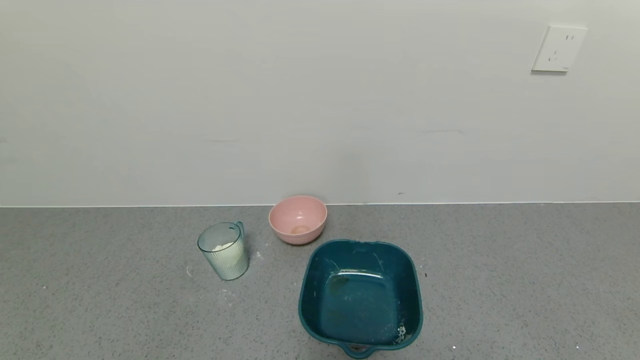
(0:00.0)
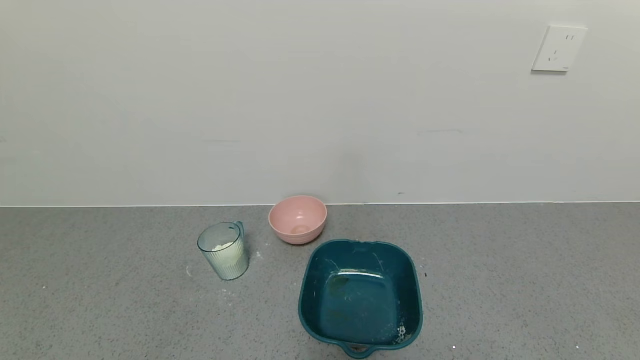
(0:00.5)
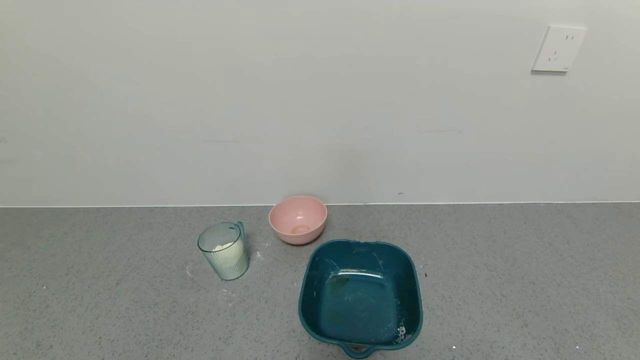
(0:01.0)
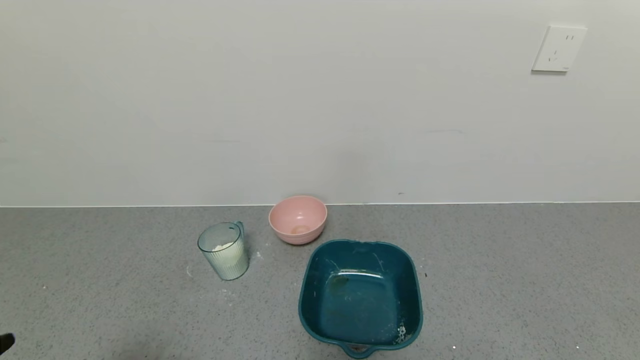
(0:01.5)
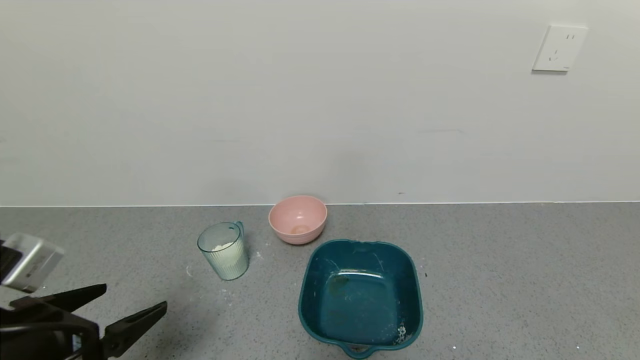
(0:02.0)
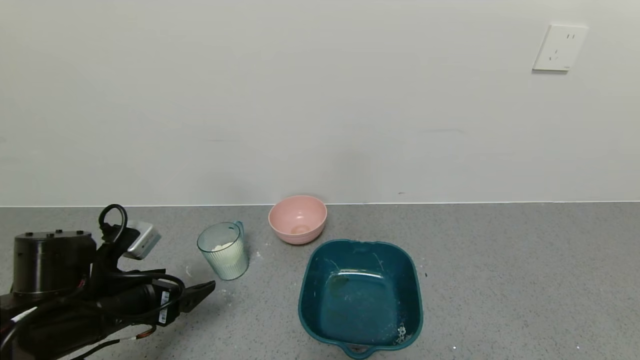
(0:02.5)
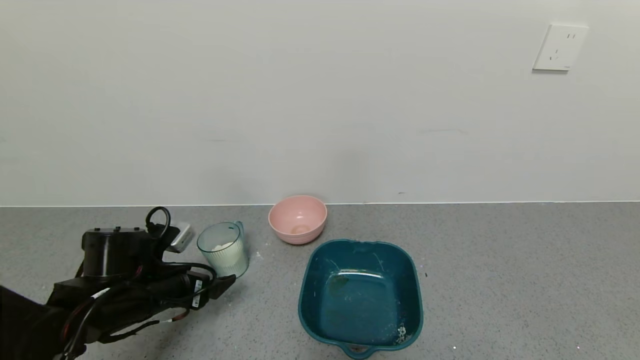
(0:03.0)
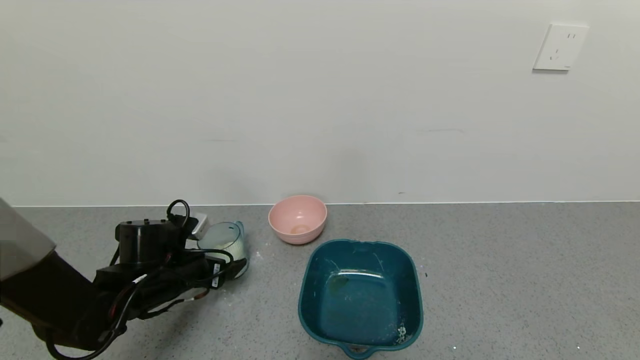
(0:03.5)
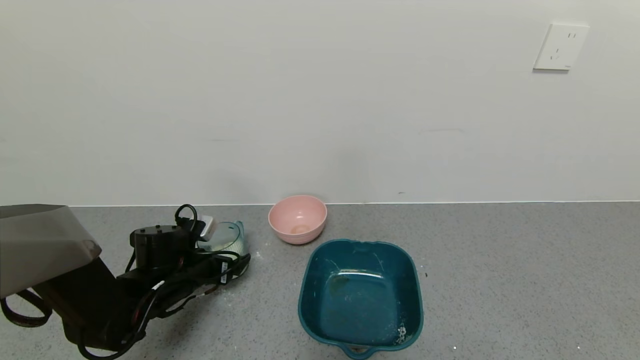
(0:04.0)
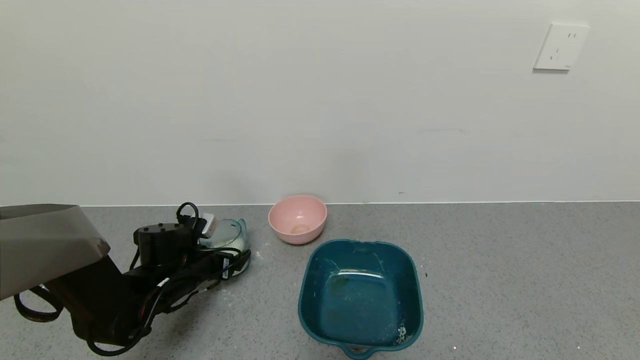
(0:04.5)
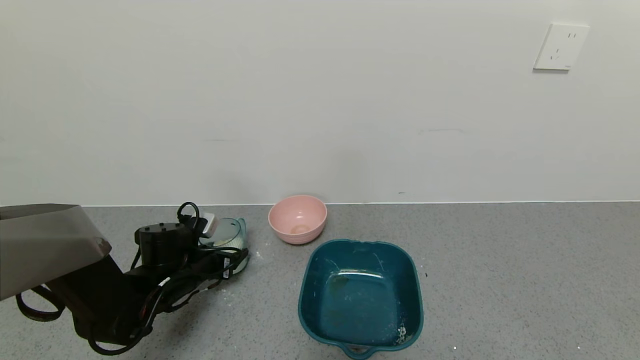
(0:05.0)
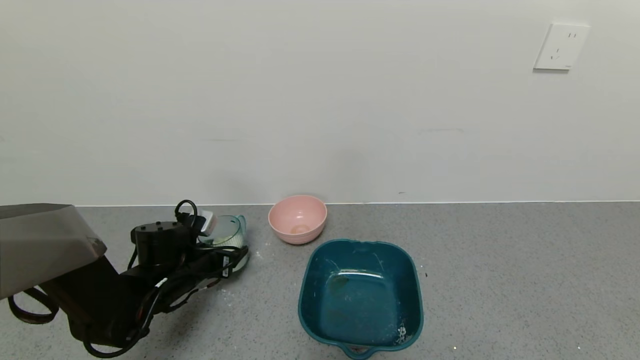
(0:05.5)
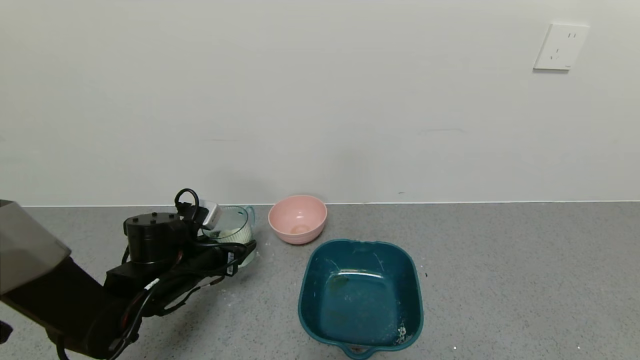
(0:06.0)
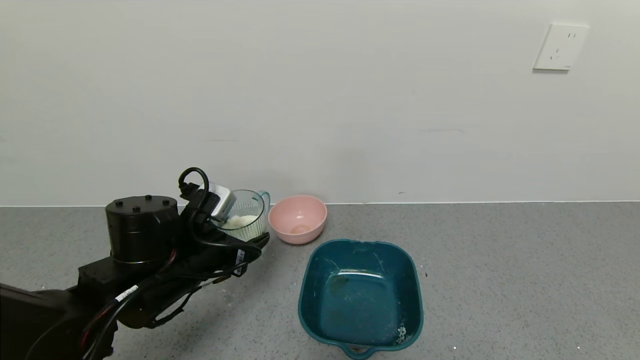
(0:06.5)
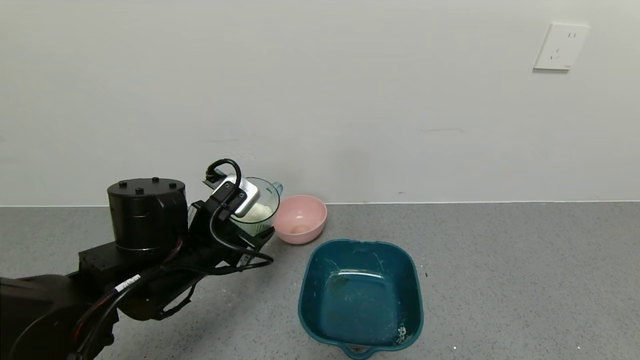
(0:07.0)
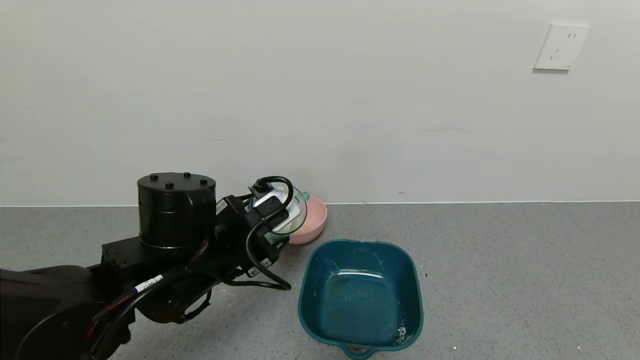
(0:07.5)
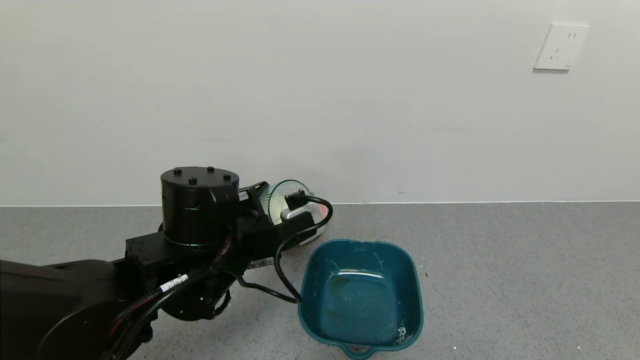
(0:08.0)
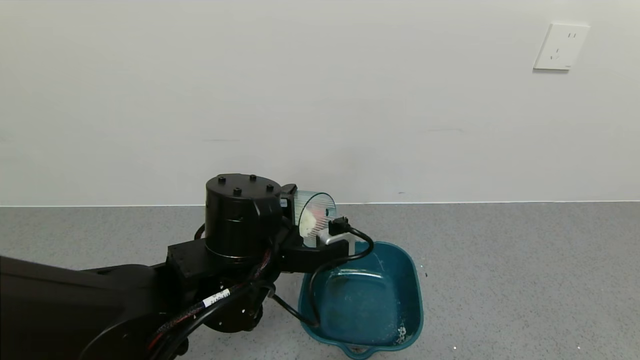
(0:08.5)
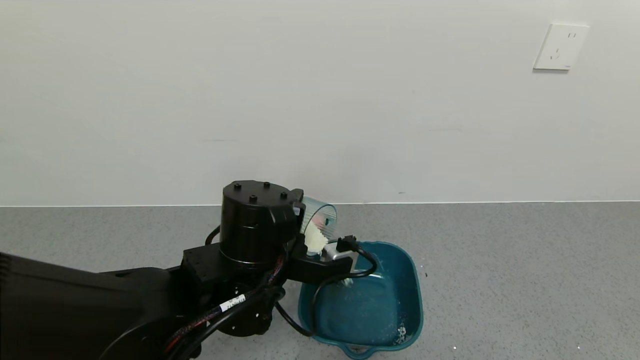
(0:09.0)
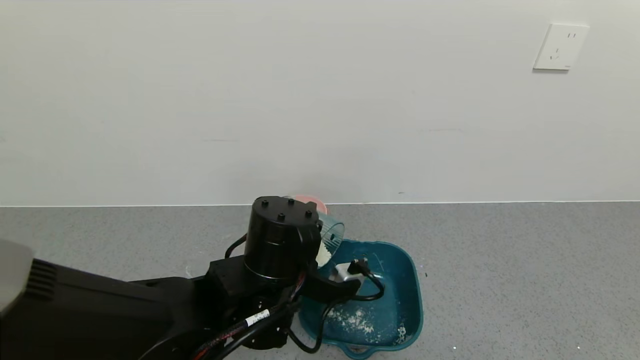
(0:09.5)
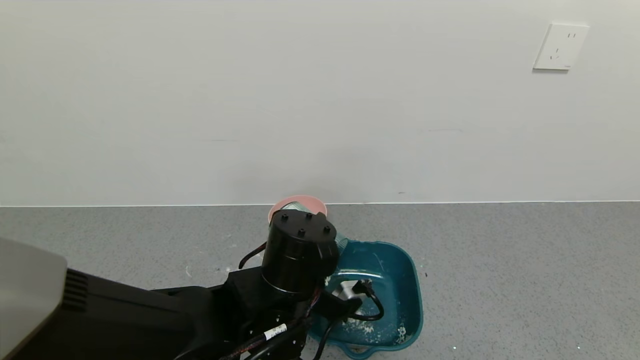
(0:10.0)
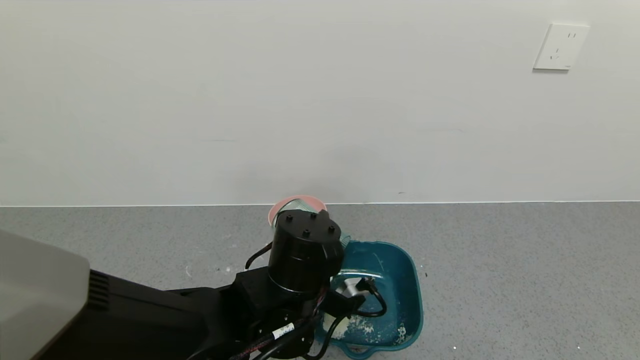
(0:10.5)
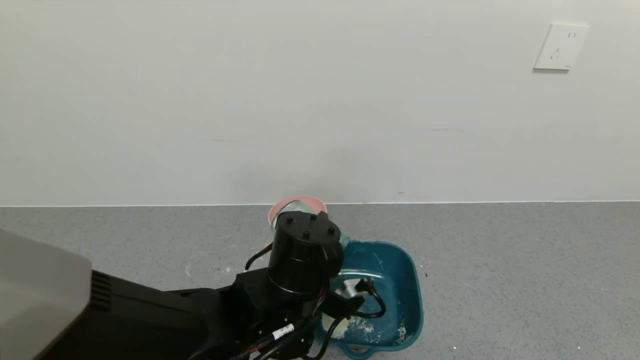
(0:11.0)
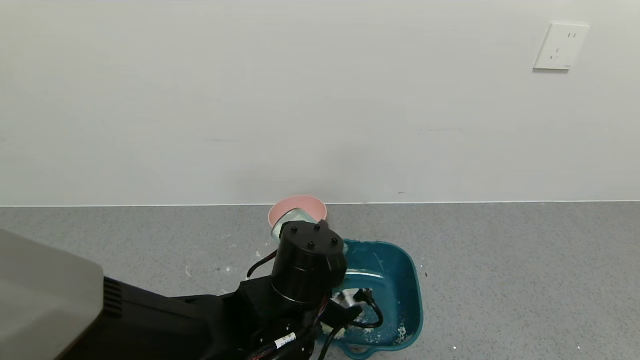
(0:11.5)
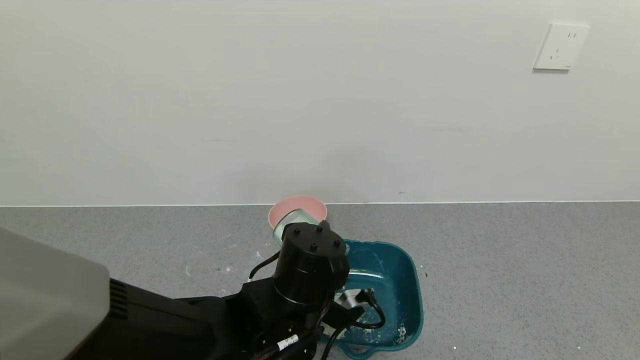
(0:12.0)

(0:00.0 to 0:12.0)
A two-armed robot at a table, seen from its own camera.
Task of the whole recording: use a gripper to pick up the cup and pour the powder into a bowl or tray.
Step, 0:00.0 - 0:06.0: Pick up blue cup filled with milk powder with left gripper.
0:00.0 - 0:02.0: The left gripper goes about 20 cm forward and upward.
0:02.0 - 0:04.0: The left gripper heads forward and downward, covering roughly 25 cm.
0:04.0 - 0:06.0: The left gripper moves approximately 5 cm, and closes up.
0:06.0 - 0:08.0: The left gripper is displaced to the right, upward and backward by about 15 cm.
0:08.0 - 0:10.0: The left gripper heads to the right, covering approximately 5 cm.
0:10.0 - 0:12.0: The grippers make only small movements.

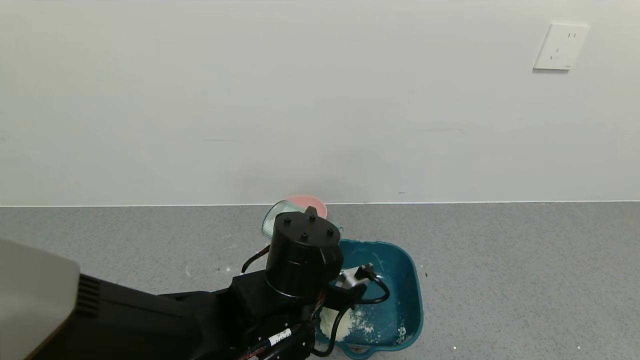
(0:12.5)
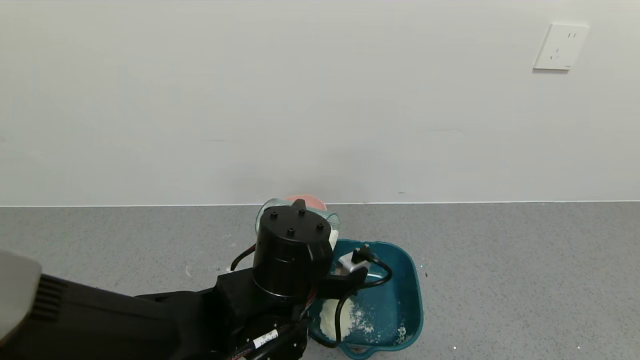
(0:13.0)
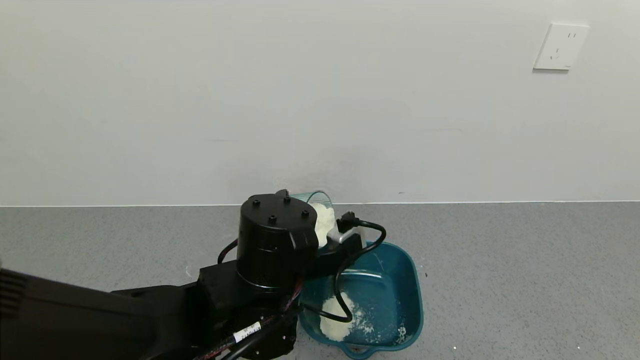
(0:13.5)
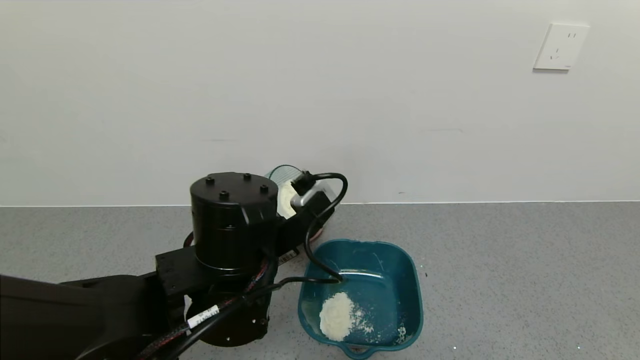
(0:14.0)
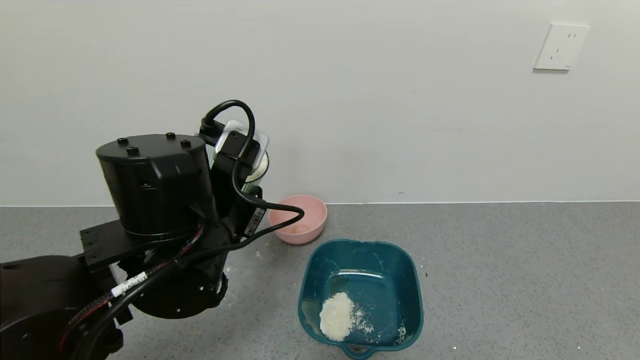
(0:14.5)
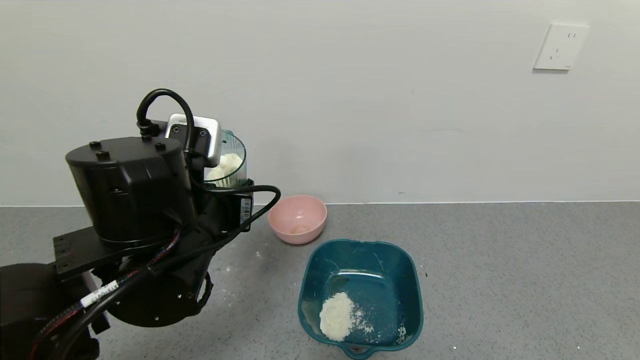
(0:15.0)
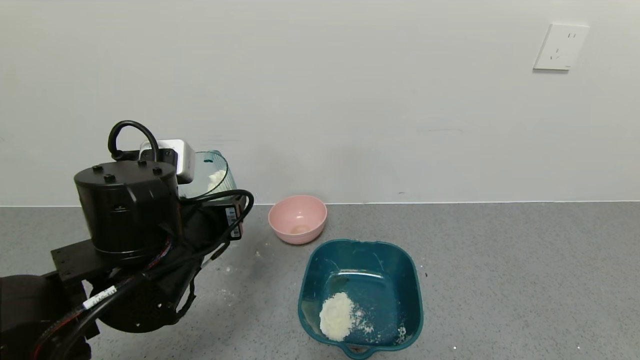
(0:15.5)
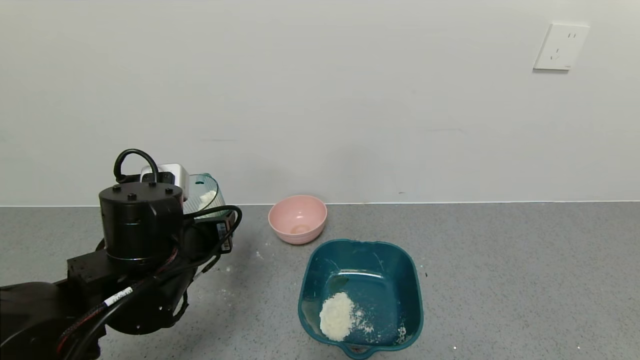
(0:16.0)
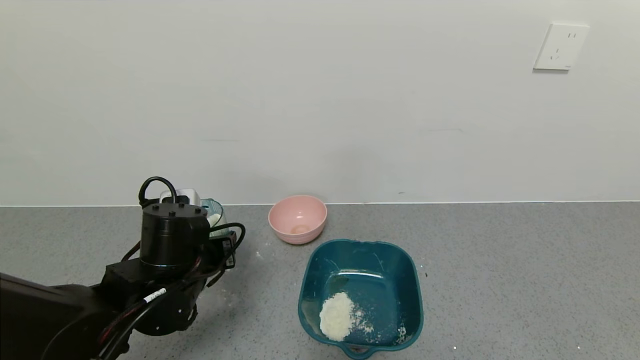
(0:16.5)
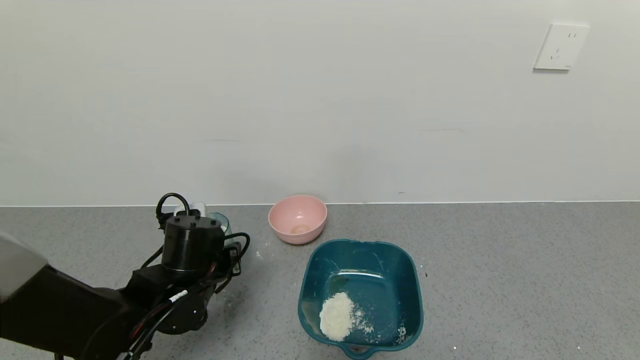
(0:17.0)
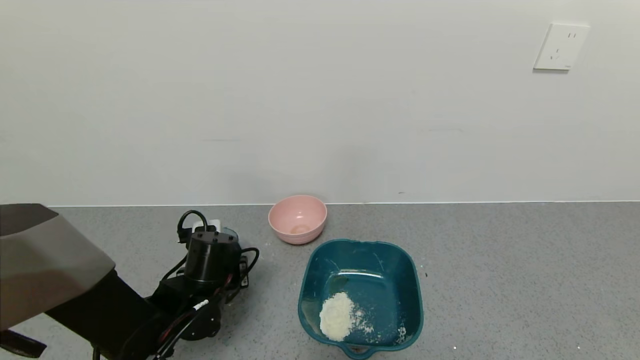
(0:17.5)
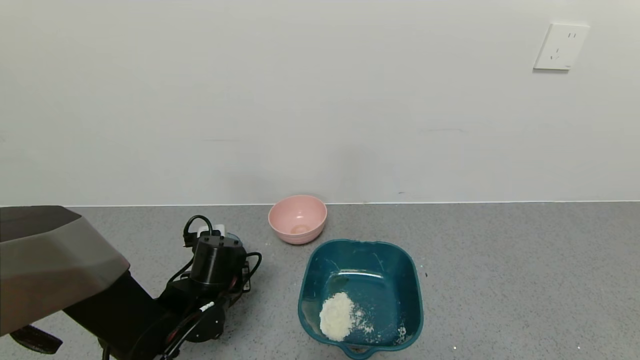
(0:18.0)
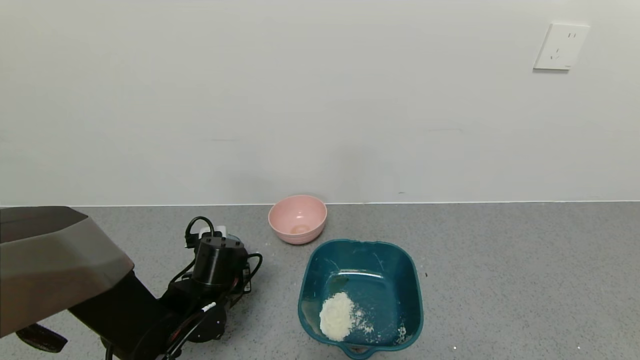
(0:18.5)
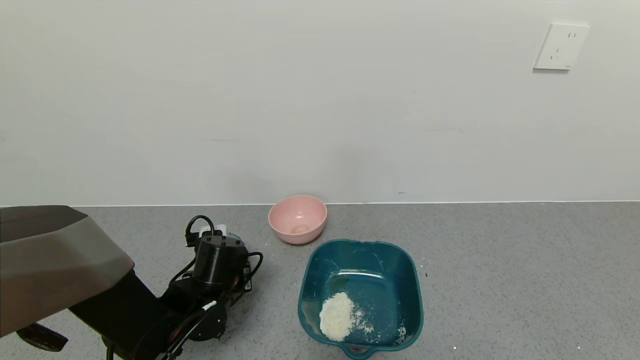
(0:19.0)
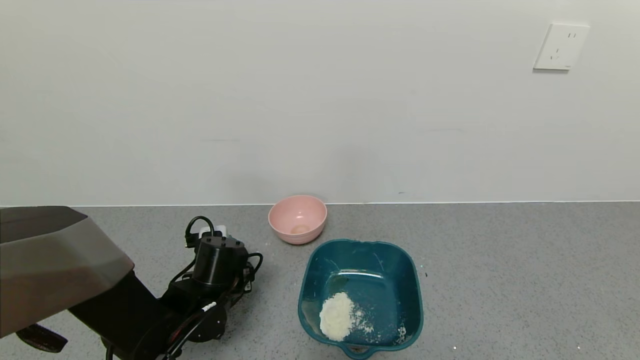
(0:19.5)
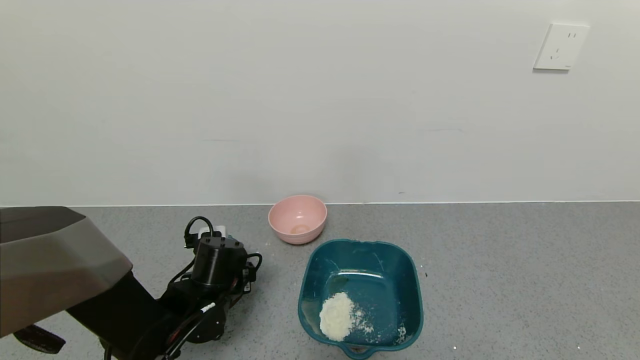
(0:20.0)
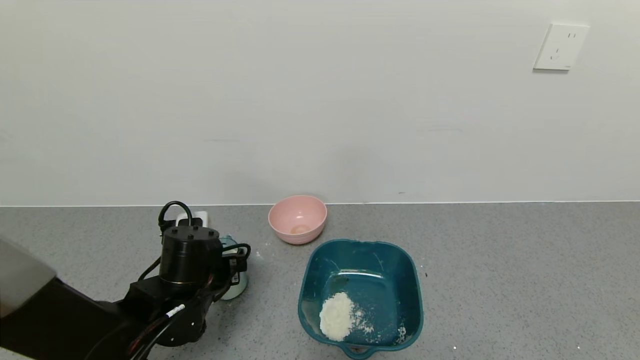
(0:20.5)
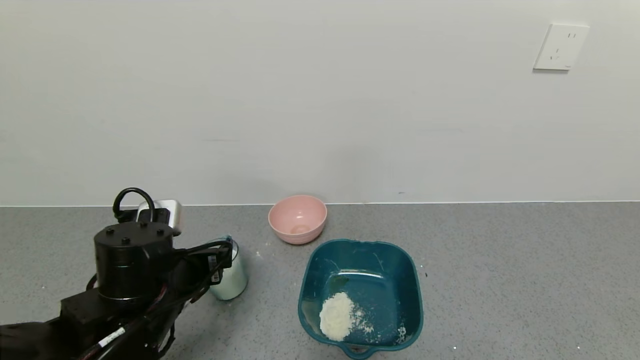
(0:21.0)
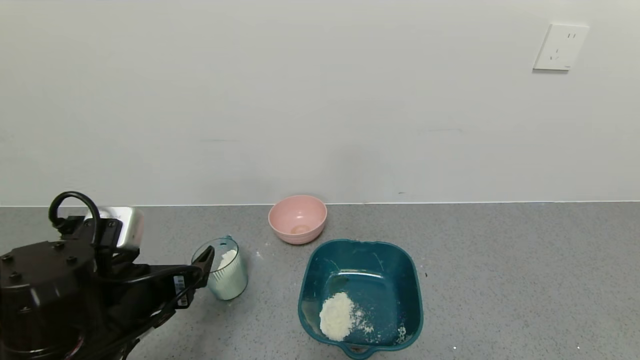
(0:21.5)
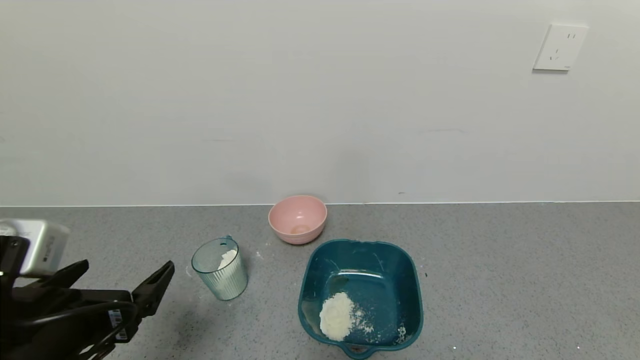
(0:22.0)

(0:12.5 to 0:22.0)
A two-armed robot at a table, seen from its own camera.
Task of the whole recording: use a gripper to pick up the cup and pour the powder into a bowl or tray.
Step, 0:13.5 - 0:18.5: Place blue cup with milk powder on the table with left gripper.
0:12.5 - 0:14.5: The left gripper heads upward and to the left, covering some 10 cm.
0:14.5 - 0:16.5: The left gripper moves downward and to the left, approximately 10 cm.
0:16.5 - 0:18.0: The left gripper heads downward, covering some 10 cm.
0:18.0 - 0:20.0: The left gripper opens up.
0:20.0 - 0:22.0: The left gripper heads backward and upward, covering roughly 20 cm.
